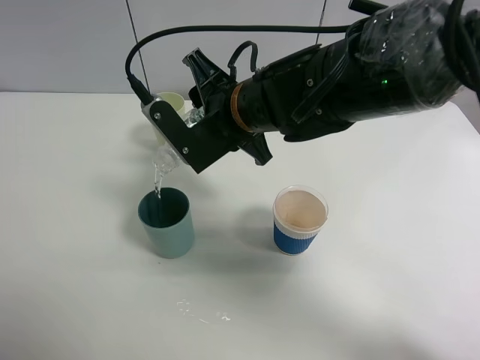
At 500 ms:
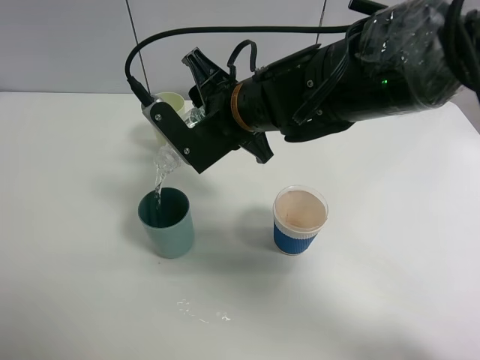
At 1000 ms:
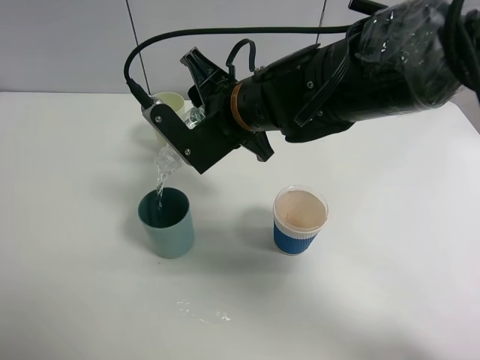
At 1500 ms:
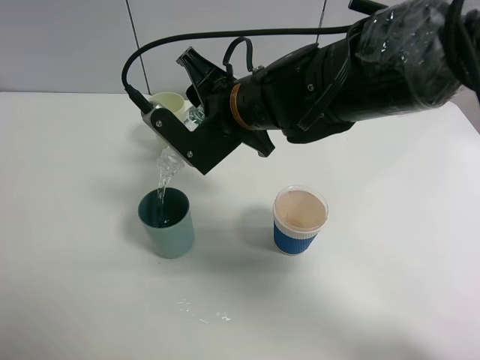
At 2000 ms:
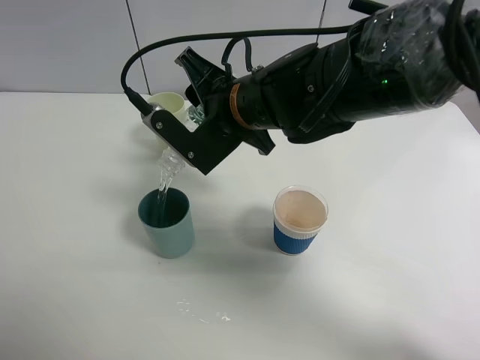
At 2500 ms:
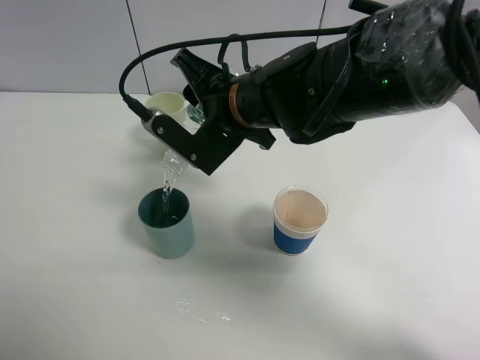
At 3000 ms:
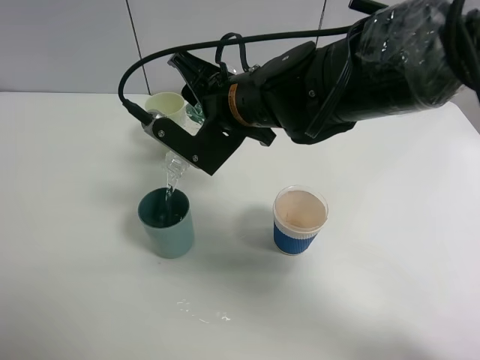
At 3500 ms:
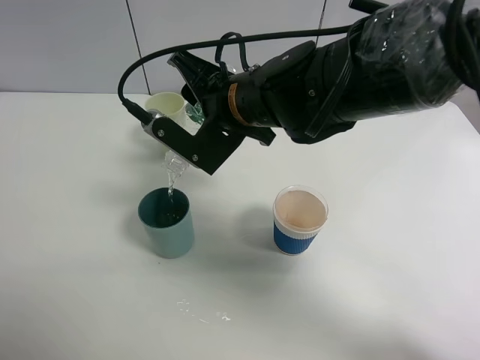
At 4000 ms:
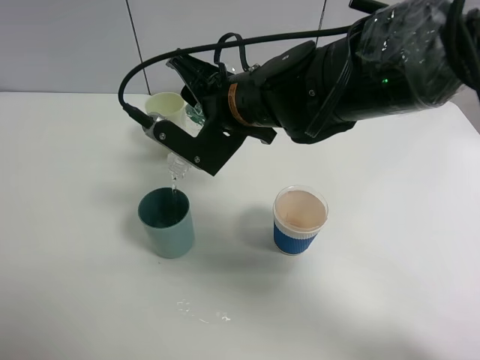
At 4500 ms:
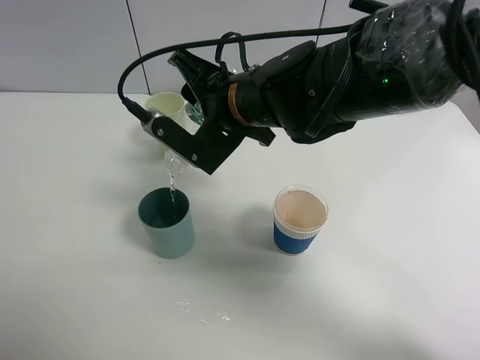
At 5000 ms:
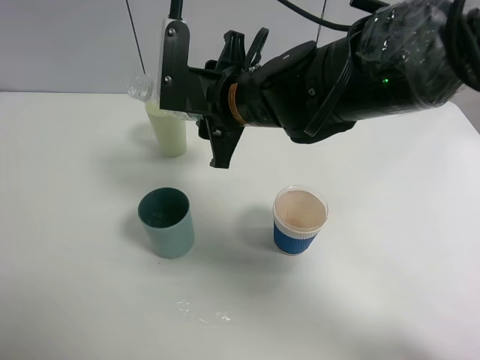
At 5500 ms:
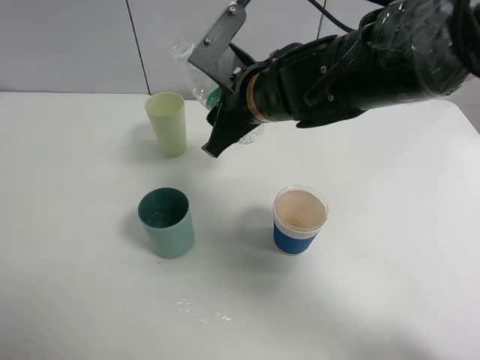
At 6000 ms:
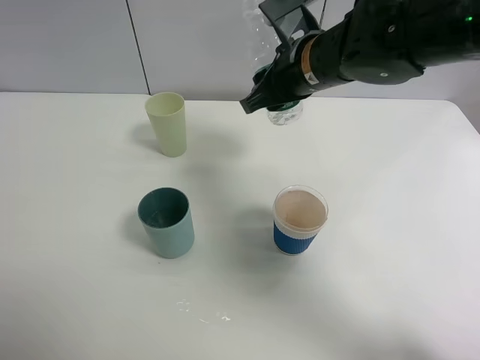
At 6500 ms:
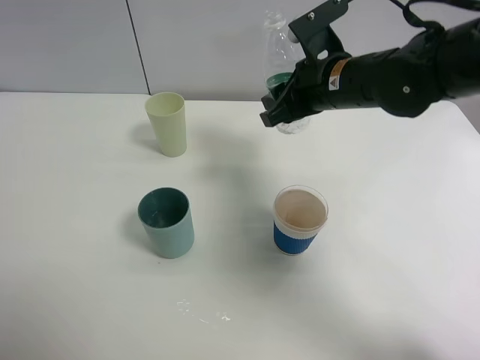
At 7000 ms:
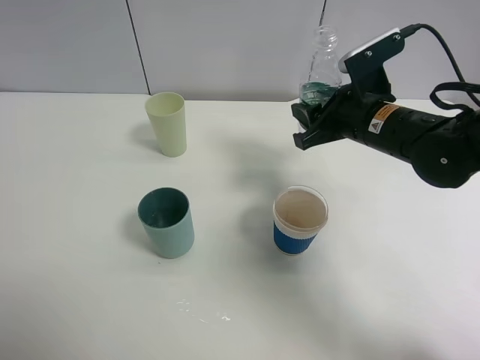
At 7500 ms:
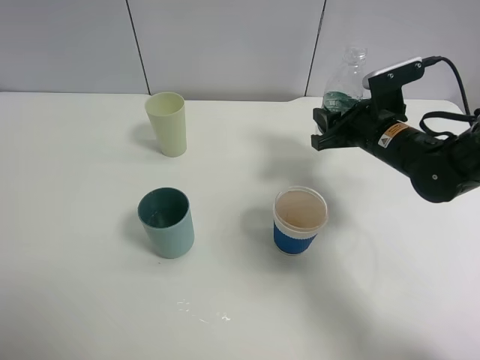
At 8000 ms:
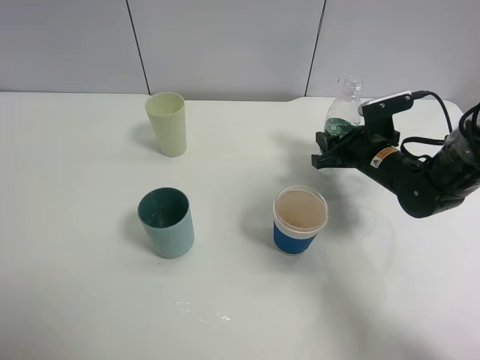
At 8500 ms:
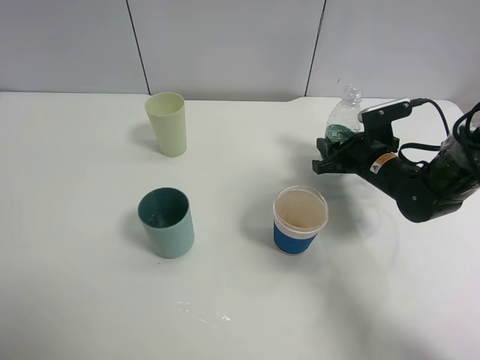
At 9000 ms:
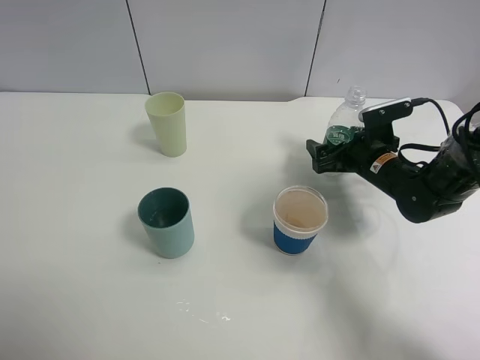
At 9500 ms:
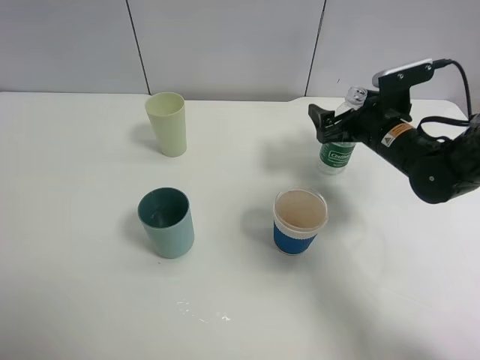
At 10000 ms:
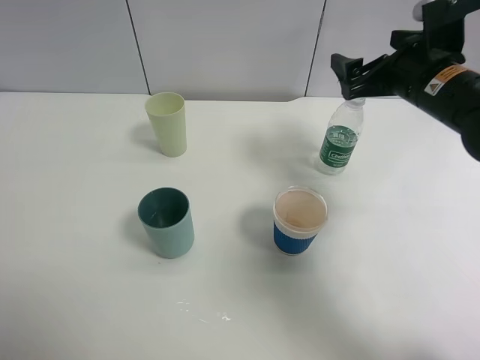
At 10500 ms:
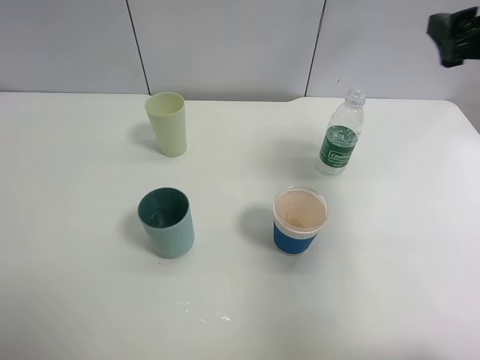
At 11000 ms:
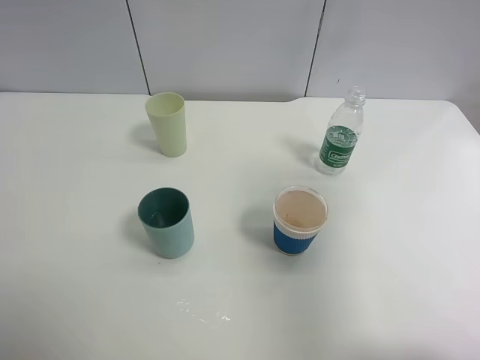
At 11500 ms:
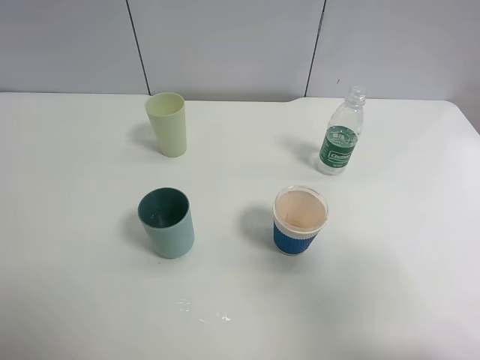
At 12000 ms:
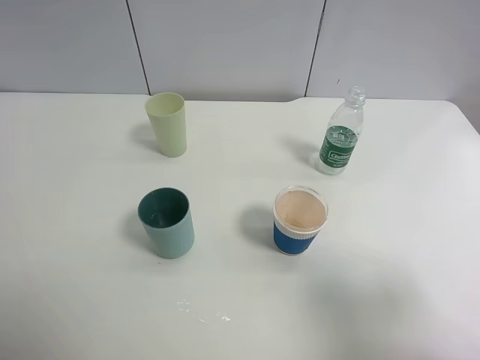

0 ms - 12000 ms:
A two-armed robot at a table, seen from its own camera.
Task of the whole recording: use a clamp to hold the bottle of the drink, pour the beverage into a random cup, then clamp the cup containing the drink and pour the drink into another random cup.
Step, 0 ms - 4500 ms: Pour water into the blue plastic cup with right gripper.
Step, 5000 ms - 8500 ms: Place the water bottle on the table with right gripper.
0 ms - 4000 ms: The grippers move only a little.
4000 ms - 6000 ms: The right gripper travels to the right by approximately 10 cm.
6000 ms - 8000 ms: The right gripper travels downward and to the right by some 20 cm.
8000 ms - 10000 ms: The right gripper is displaced upward by some 15 cm, and opens.
10000 ms - 12000 ms: The right gripper moves backward, approximately 30 cm.

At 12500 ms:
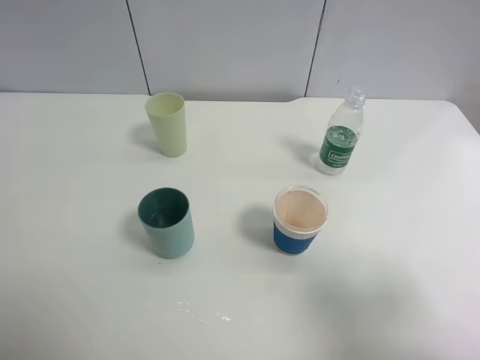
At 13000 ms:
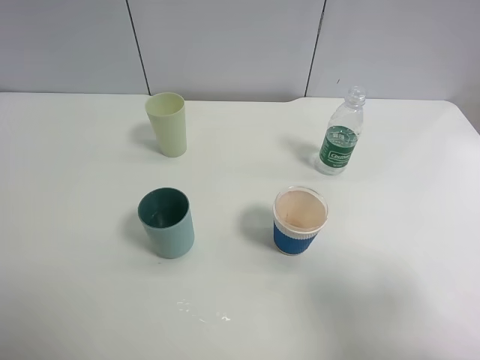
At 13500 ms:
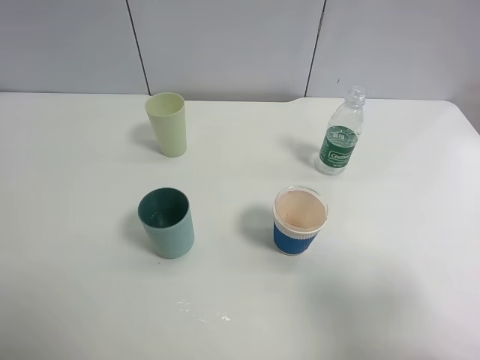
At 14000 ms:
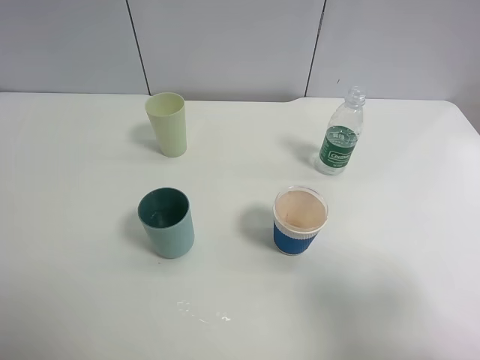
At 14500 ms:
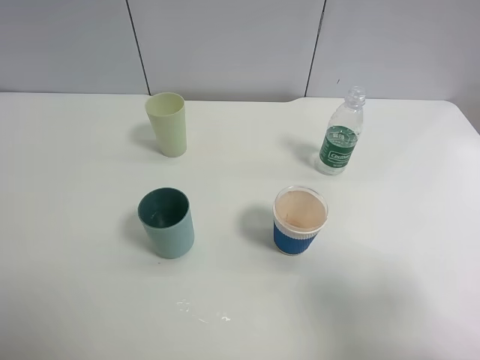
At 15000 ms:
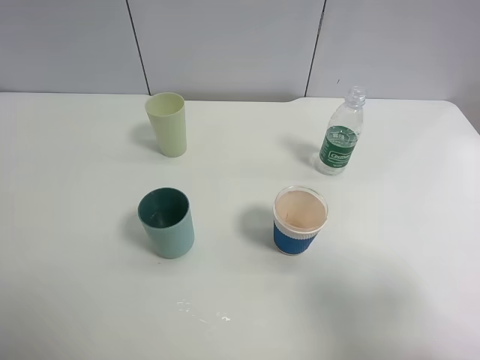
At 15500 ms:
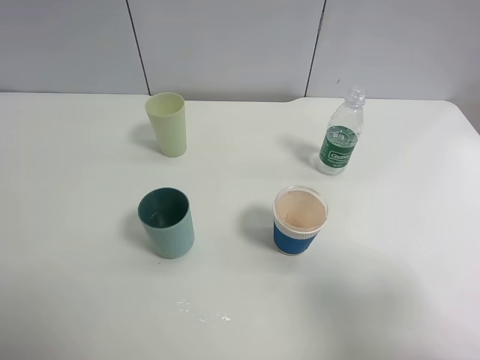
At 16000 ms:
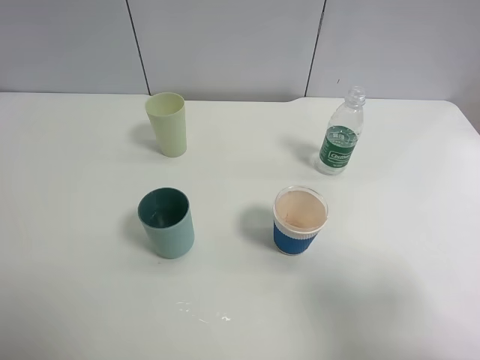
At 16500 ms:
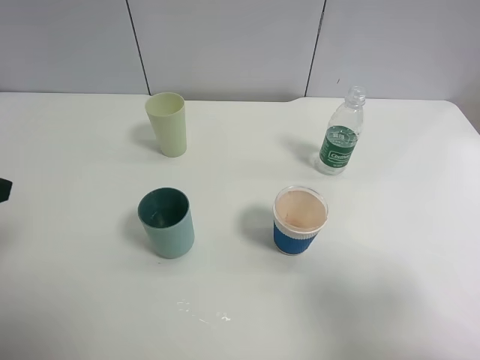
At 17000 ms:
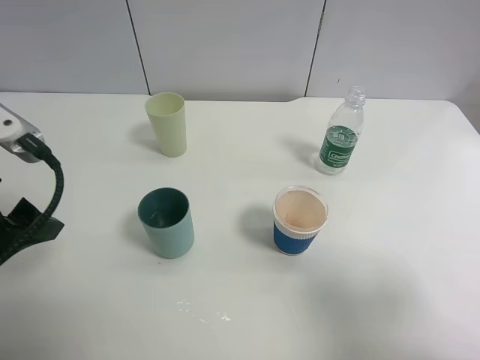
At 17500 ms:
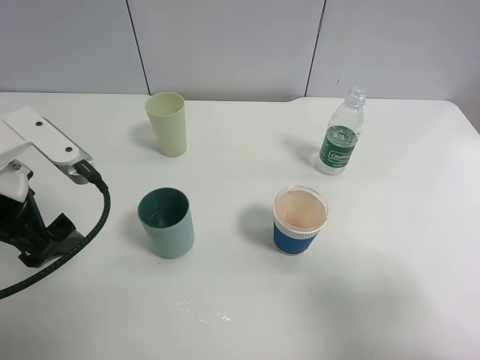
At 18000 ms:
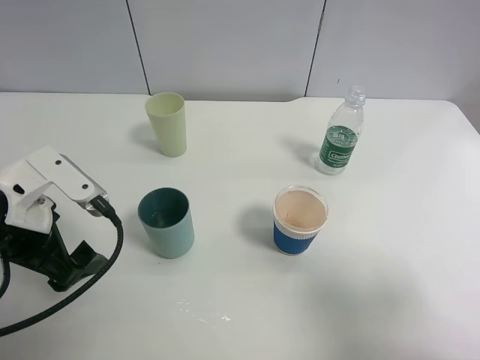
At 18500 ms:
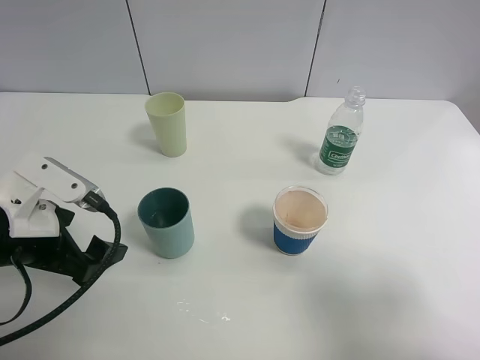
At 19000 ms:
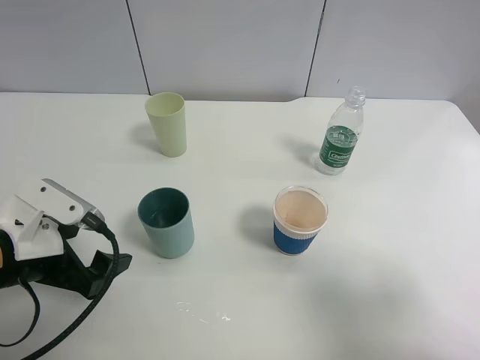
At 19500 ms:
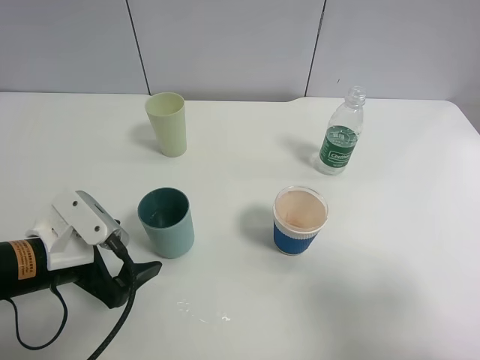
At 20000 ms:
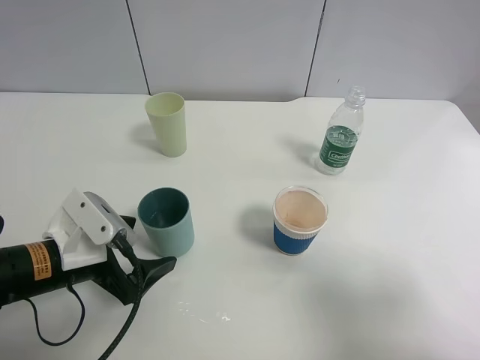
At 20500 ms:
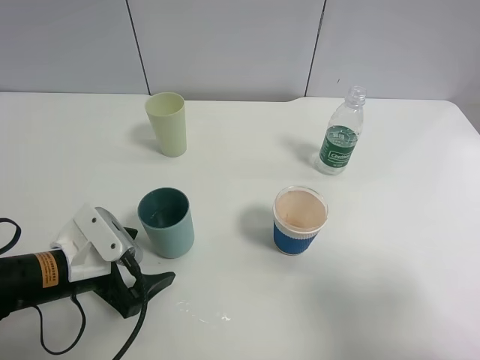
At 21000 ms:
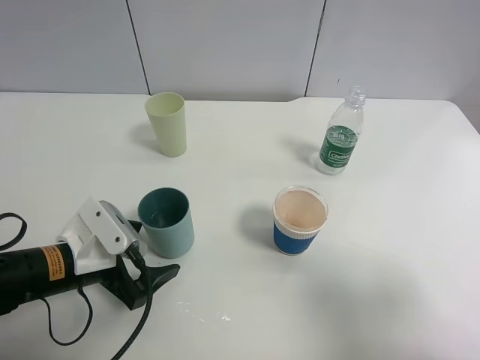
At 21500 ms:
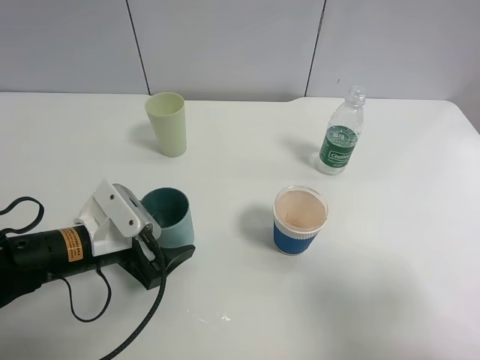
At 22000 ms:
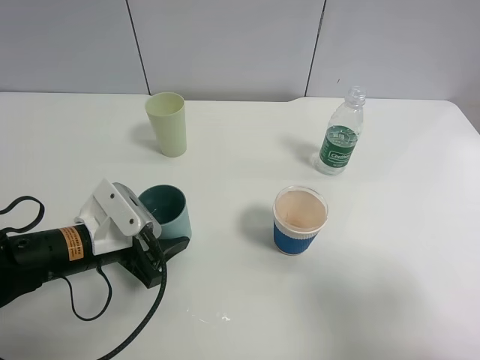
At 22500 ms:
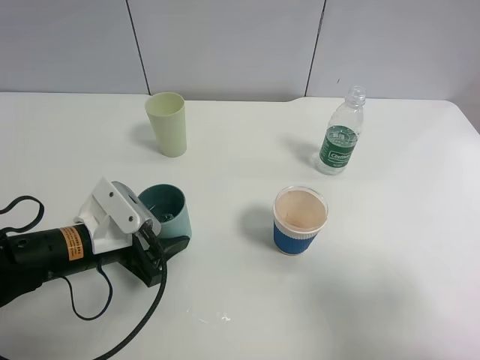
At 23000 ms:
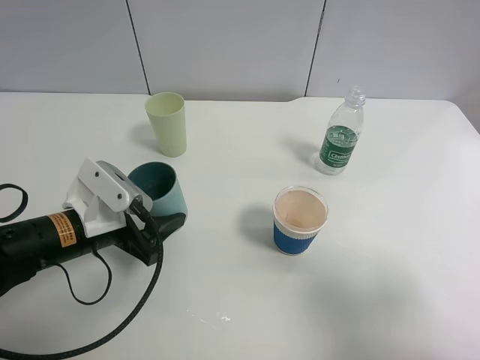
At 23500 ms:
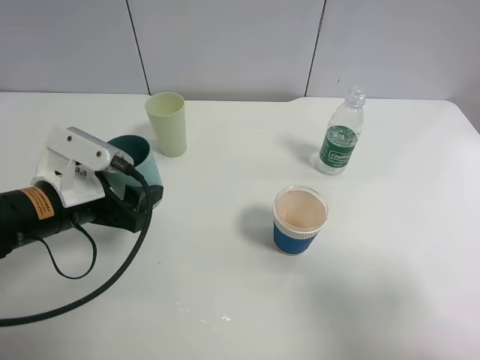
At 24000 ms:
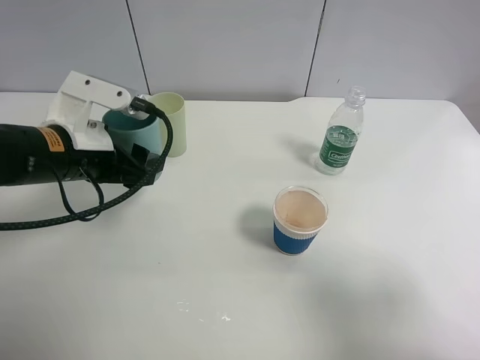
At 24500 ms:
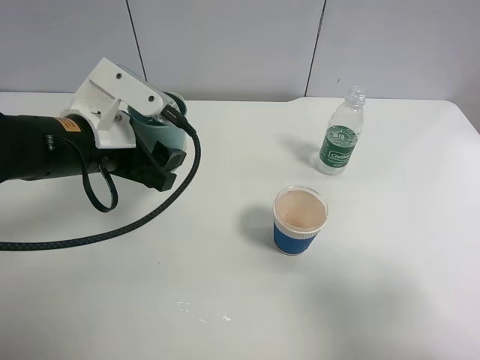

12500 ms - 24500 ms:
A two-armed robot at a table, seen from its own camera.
Task of the whole recording: use a clamp to hold the bottle of the drink, pour the beverage into a random cup, then clamp the cup containing the drink and pour the drink into another random cup.
Step, 12500 ms - 22500 ms: Pick up the blue plastic cup bottle with left gripper.
12500 ms - 14500 ms: Both grippers stay about where they are.
16500 ms - 18500 ms: The left gripper shifts approximately 15 cm downward and to the right.
18500 ms - 20500 ms: The left gripper goes about 10 cm downward.
20500 ms - 22500 ms: The left gripper closes up.
22500 ms - 24500 ms: The left gripper heads upward, covering roughly 10 cm.

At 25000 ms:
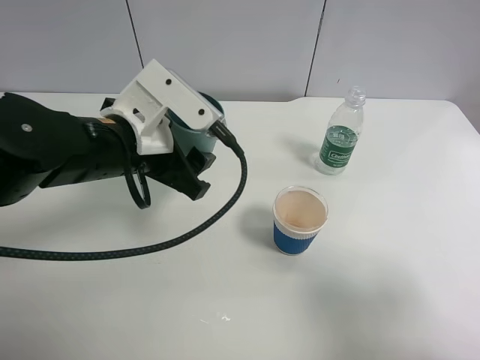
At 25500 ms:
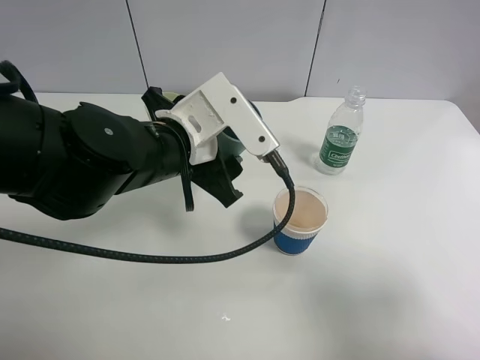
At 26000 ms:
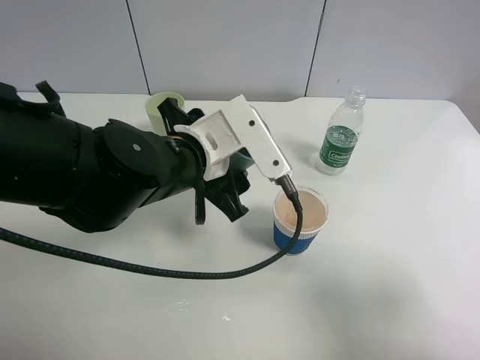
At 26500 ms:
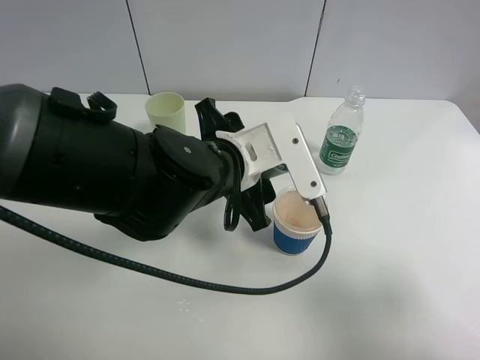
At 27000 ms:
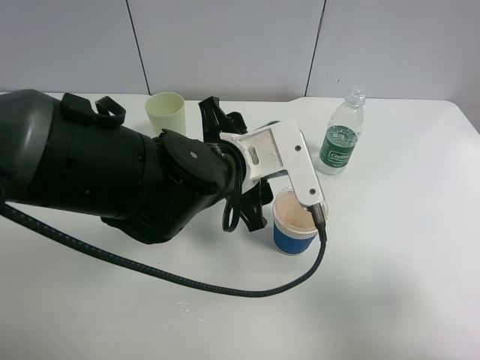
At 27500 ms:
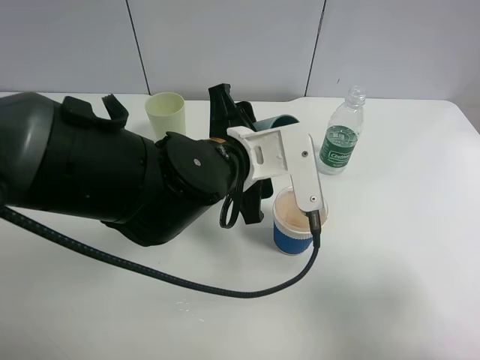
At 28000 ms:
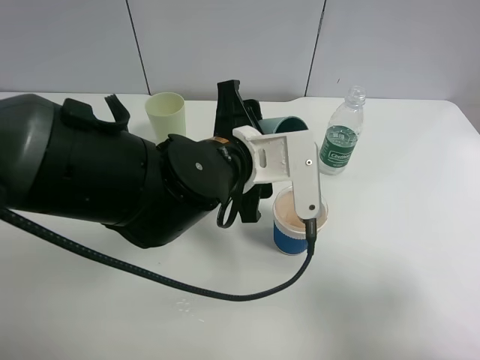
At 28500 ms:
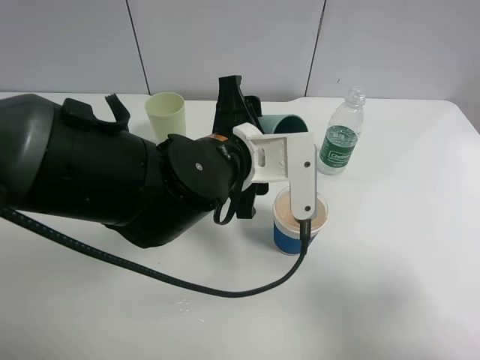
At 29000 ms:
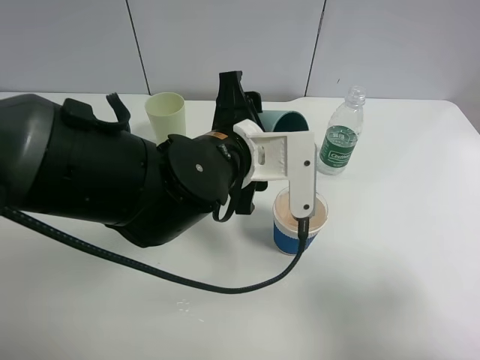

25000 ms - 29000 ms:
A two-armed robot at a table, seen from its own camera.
Task of the whole recording: use a clamp to hold the bottle of the drink, pour the beverage into a random cup, then clamp the cup containing the drink and pour the drink into another random cup.
25000 ms - 27000 ms: The left gripper is displaced to the right by approximately 10 cm.
